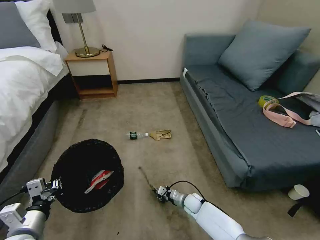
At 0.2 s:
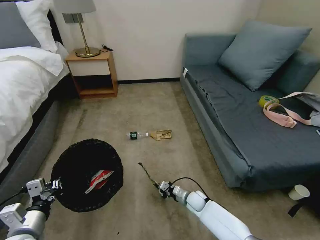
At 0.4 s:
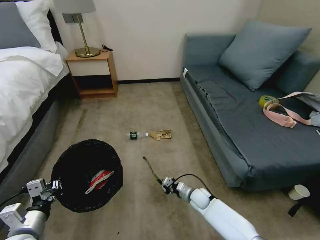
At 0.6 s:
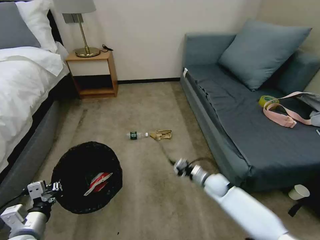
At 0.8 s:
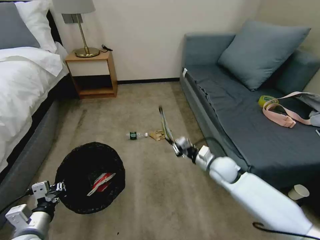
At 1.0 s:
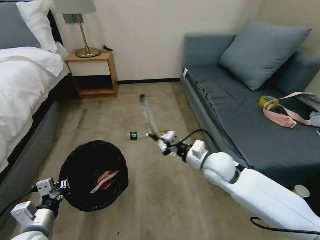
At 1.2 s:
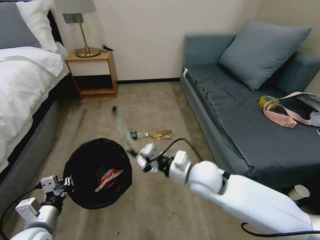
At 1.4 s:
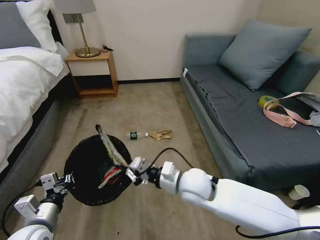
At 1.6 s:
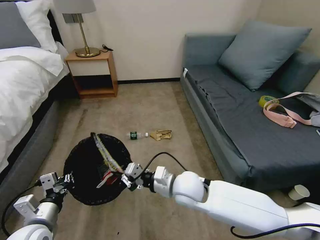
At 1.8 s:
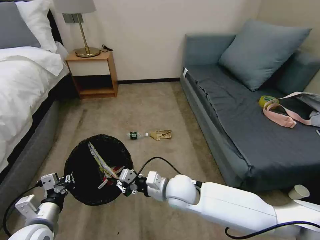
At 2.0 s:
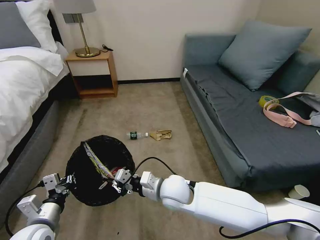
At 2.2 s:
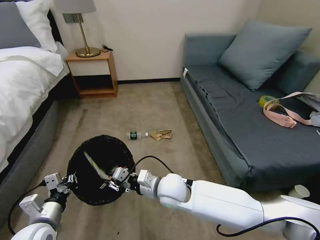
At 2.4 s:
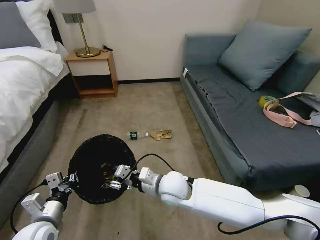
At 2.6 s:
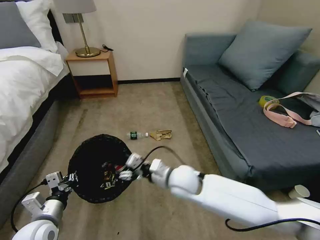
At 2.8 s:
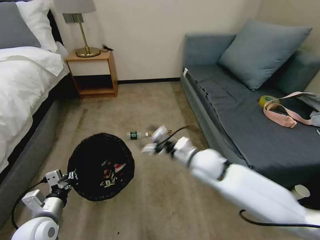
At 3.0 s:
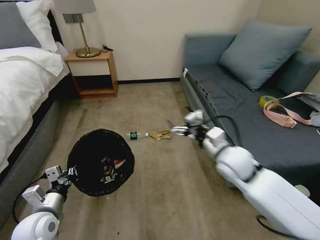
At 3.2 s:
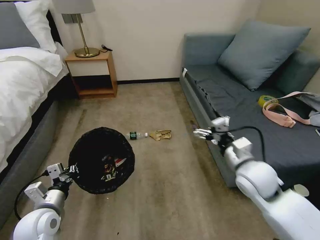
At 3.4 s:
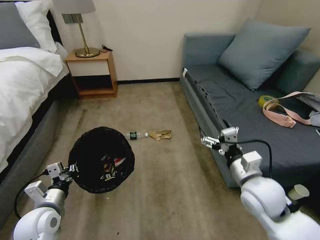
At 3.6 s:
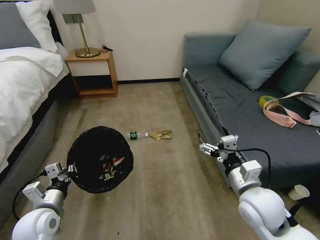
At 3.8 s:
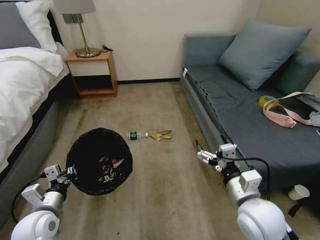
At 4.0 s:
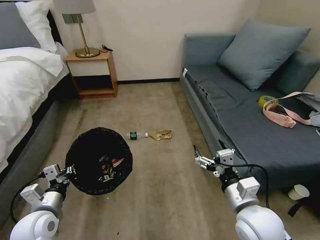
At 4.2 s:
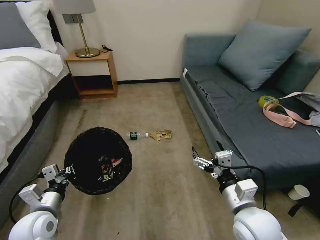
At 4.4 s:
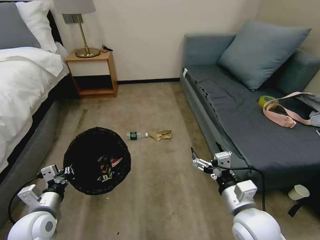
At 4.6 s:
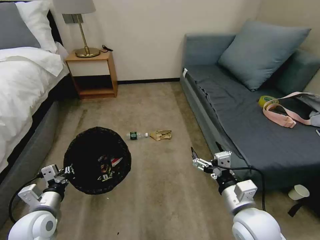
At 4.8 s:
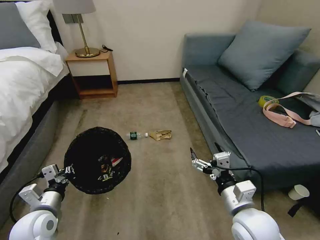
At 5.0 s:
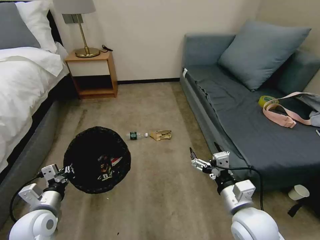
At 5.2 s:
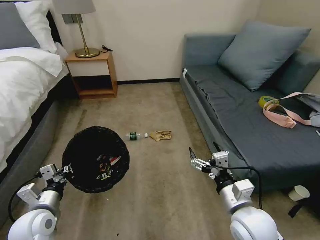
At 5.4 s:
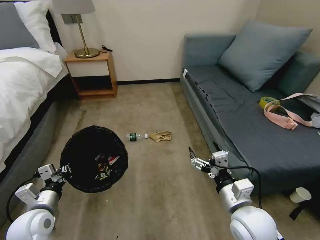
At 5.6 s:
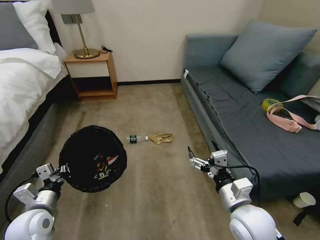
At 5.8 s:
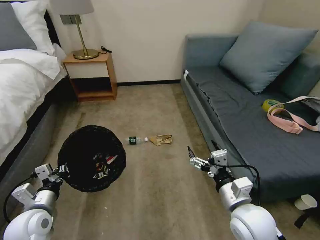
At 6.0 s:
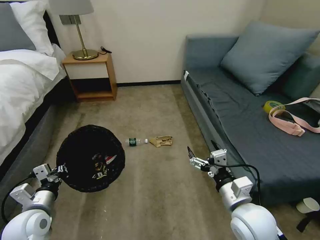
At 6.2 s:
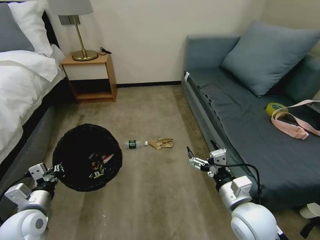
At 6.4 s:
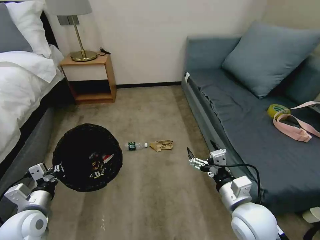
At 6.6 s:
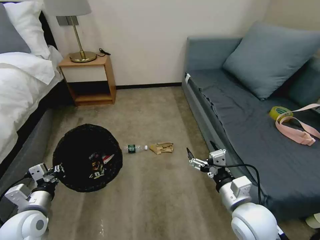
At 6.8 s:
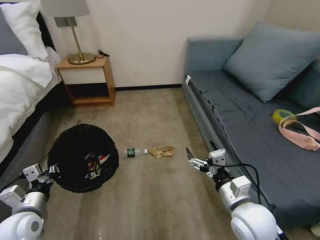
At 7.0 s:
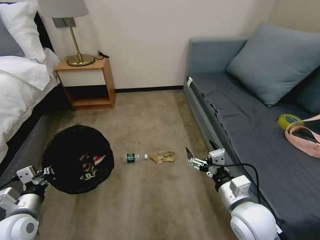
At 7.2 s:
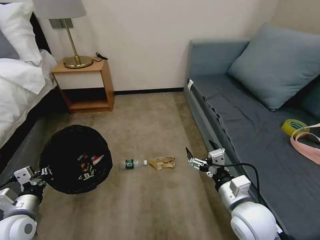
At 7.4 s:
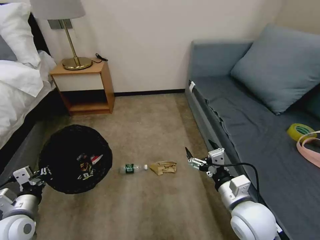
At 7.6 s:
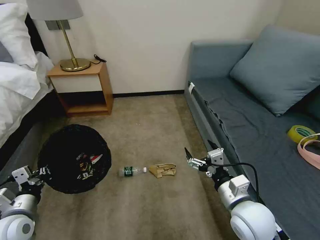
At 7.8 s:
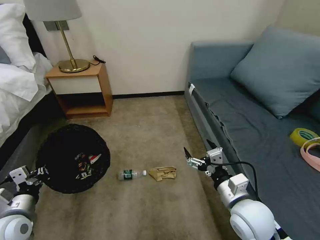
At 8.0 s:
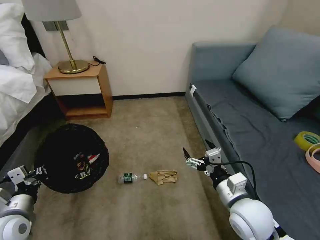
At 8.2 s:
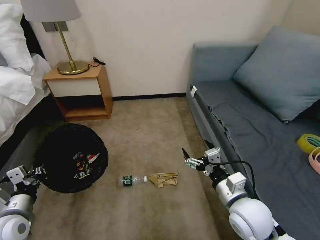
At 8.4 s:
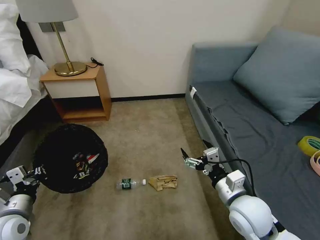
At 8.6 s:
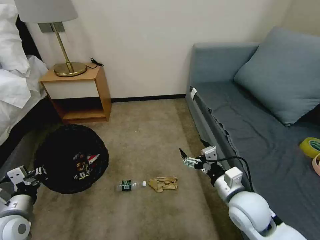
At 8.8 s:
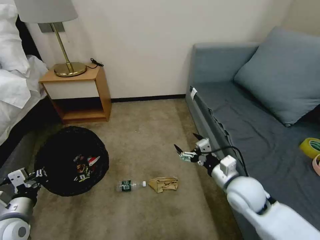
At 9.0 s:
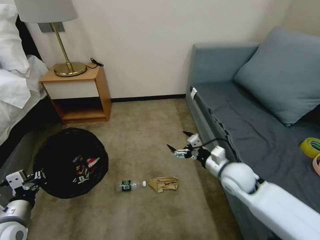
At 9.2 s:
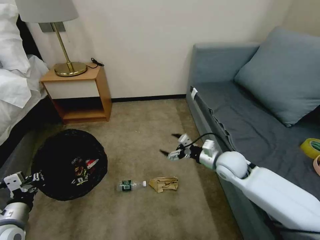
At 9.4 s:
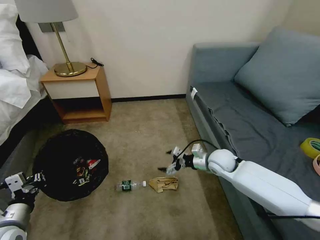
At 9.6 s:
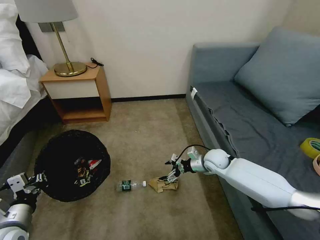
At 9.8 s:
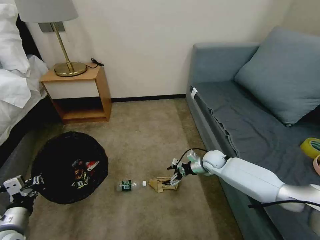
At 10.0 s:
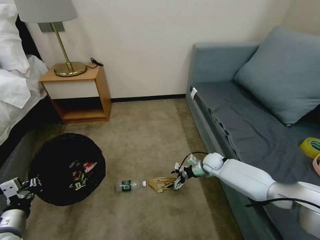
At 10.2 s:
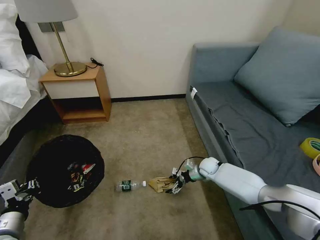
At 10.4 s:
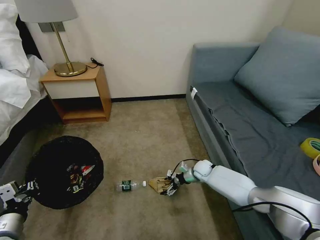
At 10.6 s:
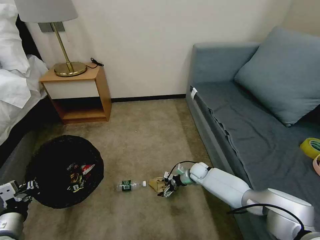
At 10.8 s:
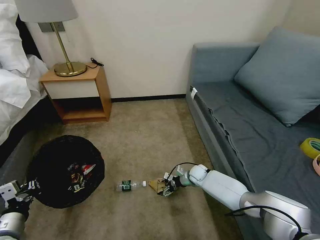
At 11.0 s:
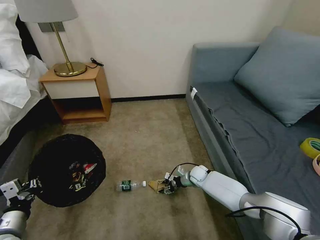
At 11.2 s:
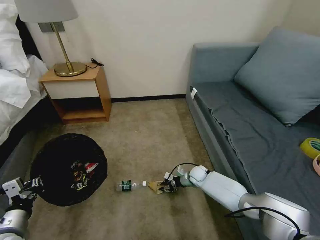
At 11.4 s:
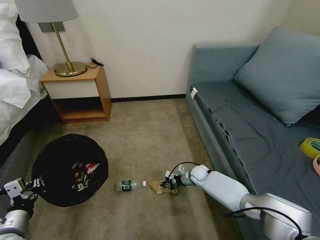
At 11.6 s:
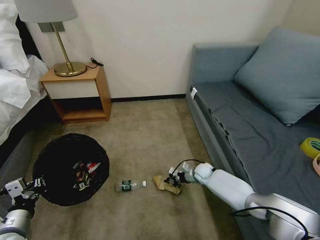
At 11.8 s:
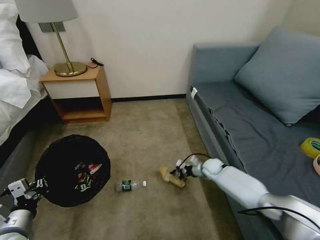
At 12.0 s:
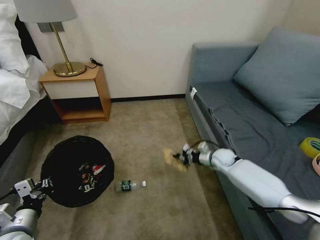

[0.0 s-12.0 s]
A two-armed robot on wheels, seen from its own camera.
Task of the whole recording: Pick up the trash bin, then pick up the garbage on the floor and place it into the trash bin.
0.0 to 1.6 s: The right gripper goes about 30 cm upward.
1.6 to 3.0 s: The right gripper moves to the right and upward, approximately 15 cm, and opens up.
3.0 to 4.4 s: The right gripper goes approximately 15 cm backward.
7.6 to 9.0 s: The right gripper moves forward, some 15 cm.
9.0 to 10.4 s: The right gripper is displaced downward and forward by approximately 25 cm.
10.4 to 12.0 s: The right gripper moves to the right and upward, about 10 cm, and closes.

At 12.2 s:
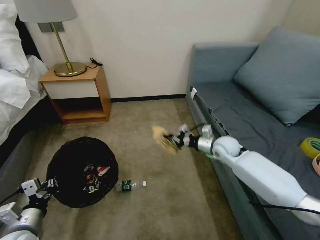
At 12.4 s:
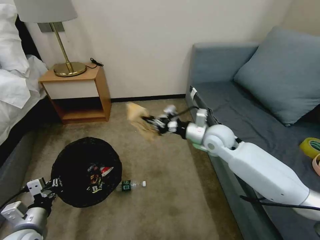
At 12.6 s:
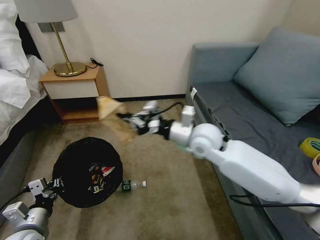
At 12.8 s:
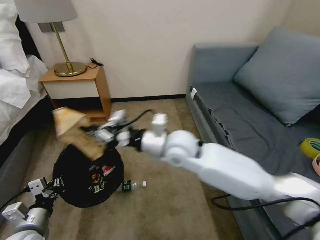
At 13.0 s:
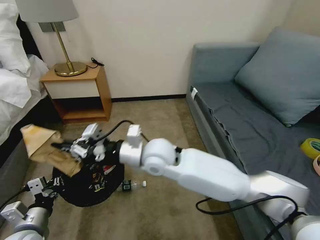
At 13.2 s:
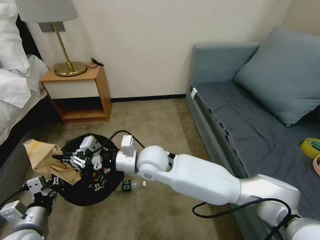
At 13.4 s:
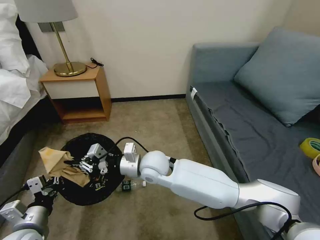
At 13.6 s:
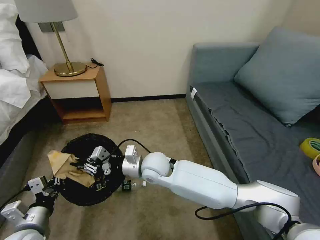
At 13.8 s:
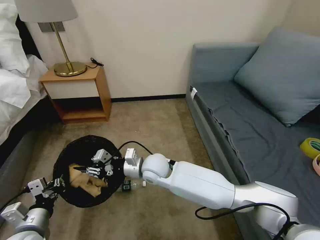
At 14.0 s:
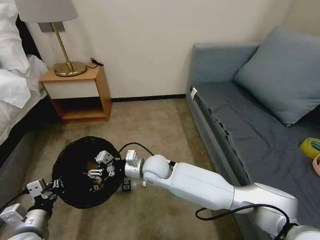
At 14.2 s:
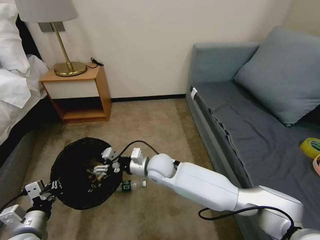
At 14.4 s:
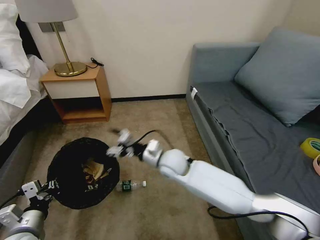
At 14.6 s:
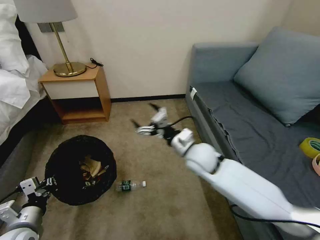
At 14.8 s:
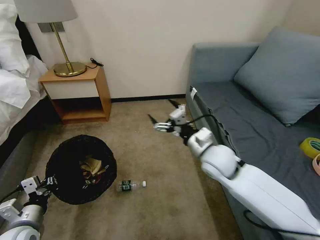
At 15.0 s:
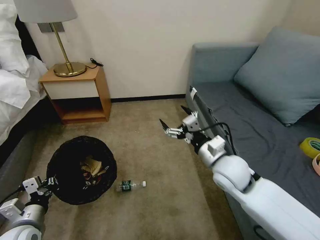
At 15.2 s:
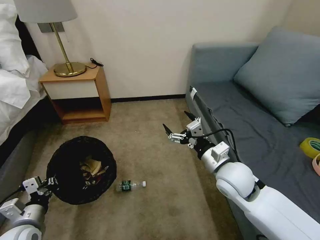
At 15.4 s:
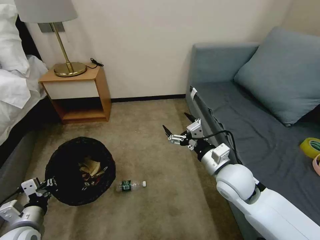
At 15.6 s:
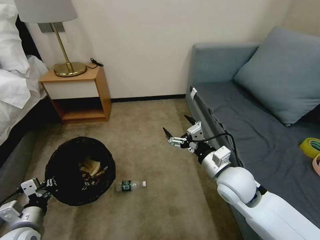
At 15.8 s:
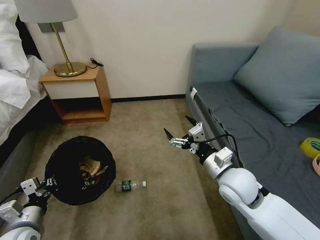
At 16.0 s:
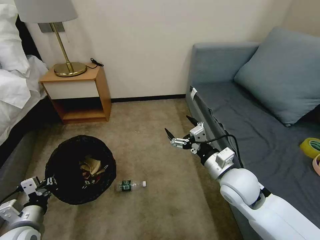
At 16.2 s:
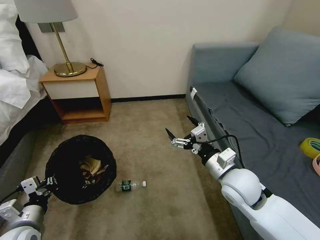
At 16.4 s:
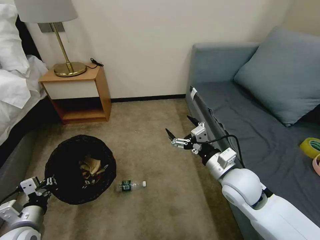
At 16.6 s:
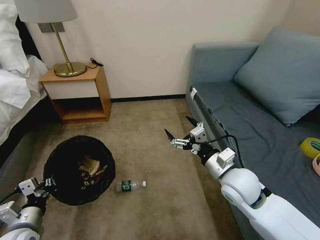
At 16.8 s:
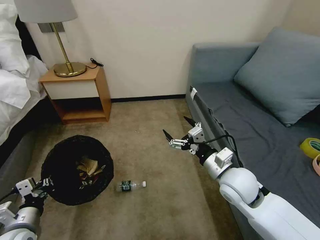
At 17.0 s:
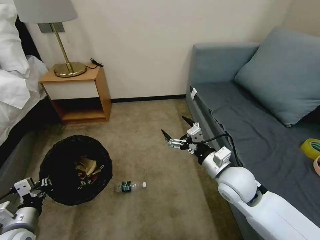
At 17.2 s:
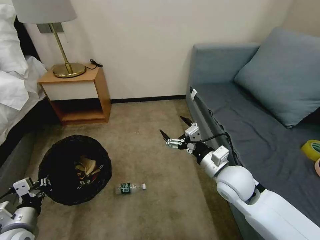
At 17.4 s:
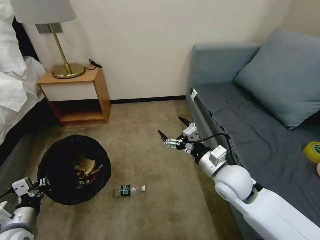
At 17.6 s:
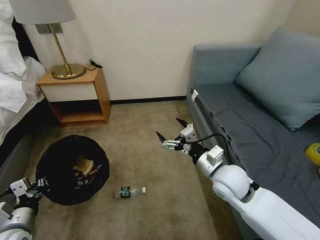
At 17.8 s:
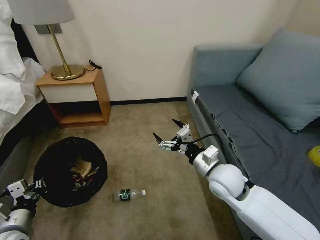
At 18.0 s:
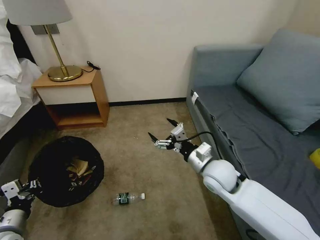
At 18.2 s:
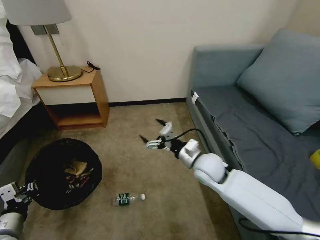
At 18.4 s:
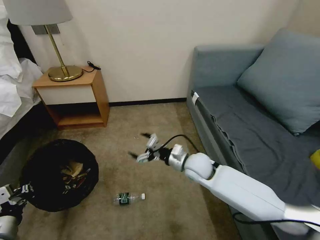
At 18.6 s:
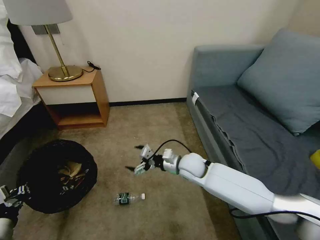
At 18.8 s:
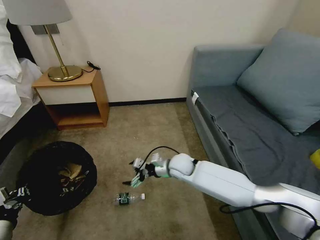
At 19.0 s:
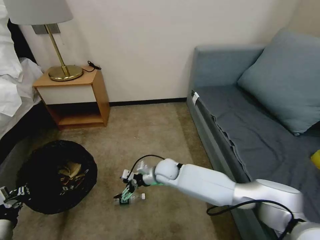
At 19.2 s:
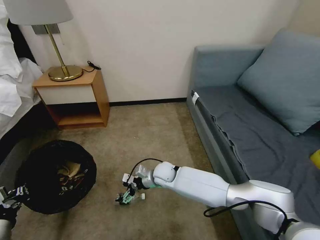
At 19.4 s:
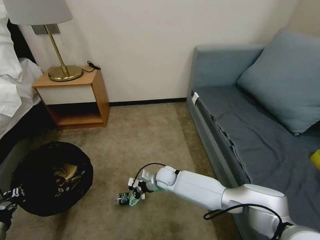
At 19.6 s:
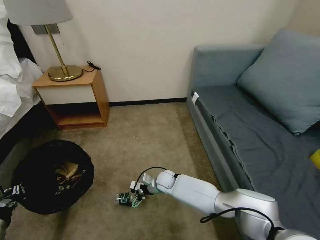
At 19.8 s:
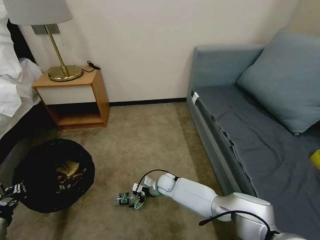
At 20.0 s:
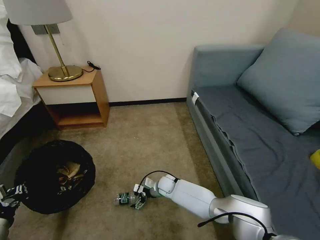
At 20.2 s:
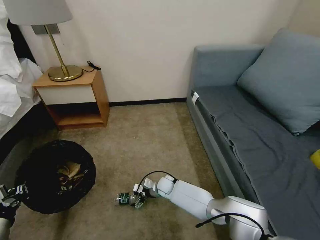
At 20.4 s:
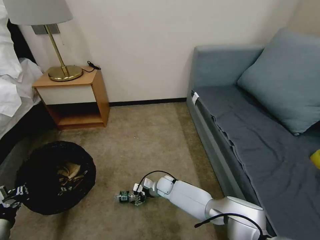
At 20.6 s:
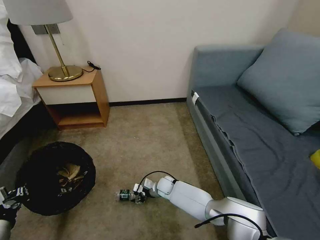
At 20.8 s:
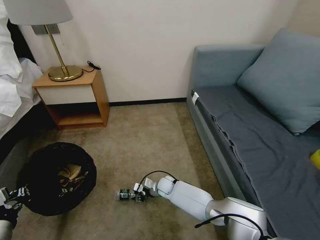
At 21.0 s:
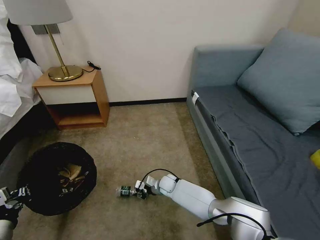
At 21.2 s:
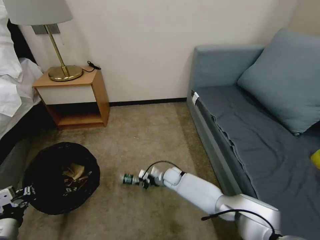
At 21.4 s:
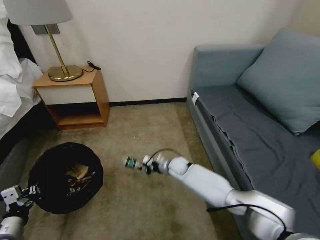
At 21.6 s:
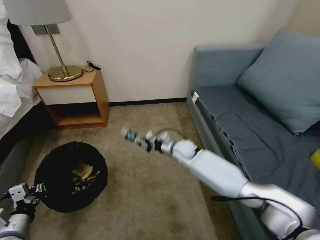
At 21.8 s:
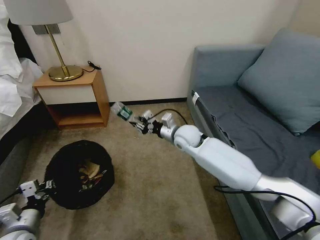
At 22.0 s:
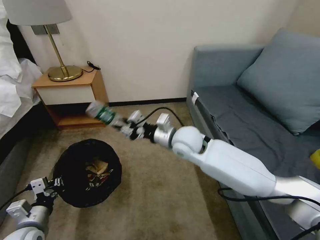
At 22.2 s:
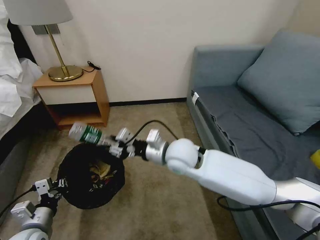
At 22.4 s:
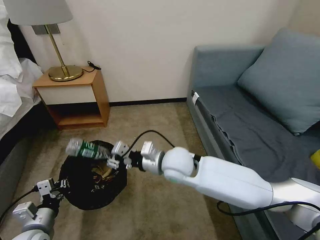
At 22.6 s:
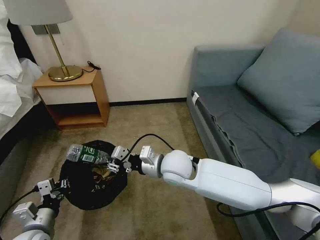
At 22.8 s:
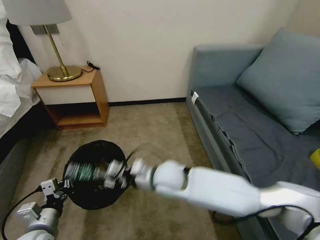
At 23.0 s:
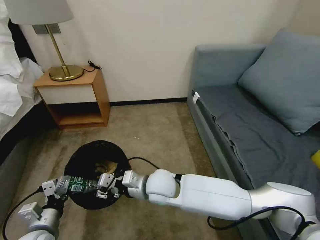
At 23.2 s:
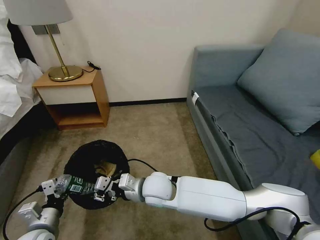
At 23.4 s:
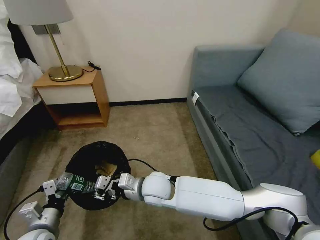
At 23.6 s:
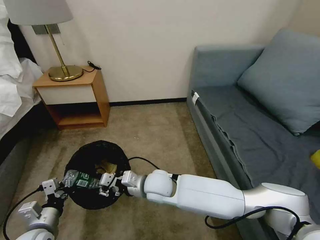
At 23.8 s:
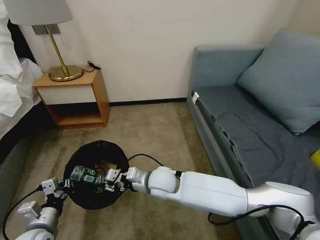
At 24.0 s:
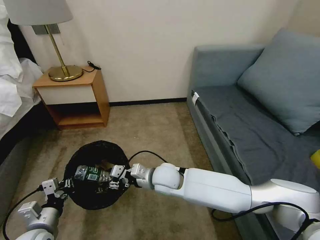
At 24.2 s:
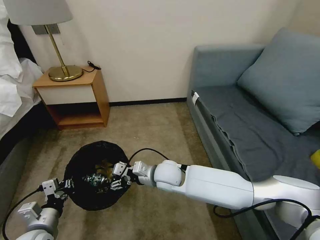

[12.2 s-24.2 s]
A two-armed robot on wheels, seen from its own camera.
Task of the whole recording: Pick up the trash bin, then pick up the garbage on the floor and place it into the trash bin.
12.2 to 13.8 s: The right gripper moves to the left, about 30 cm.
13.8 to 15.2 s: The right gripper shifts some 20 cm to the right, and opens up.
15.2 to 16.6 s: The grippers move only a little.
16.6 to 18.2 s: The right gripper heads forward and to the left, covering approximately 10 cm.
18.2 to 19.8 s: The right gripper heads downward and to the left, covering about 25 cm.
19.8 to 21.2 s: The right gripper closes its fingers.
21.2 to 22.6 s: The right gripper is displaced upward by approximately 30 cm; the left gripper heads to the right, covering about 10 cm.
22.6 to 24.2 s: The right gripper goes approximately 5 cm downward, and opens up.
